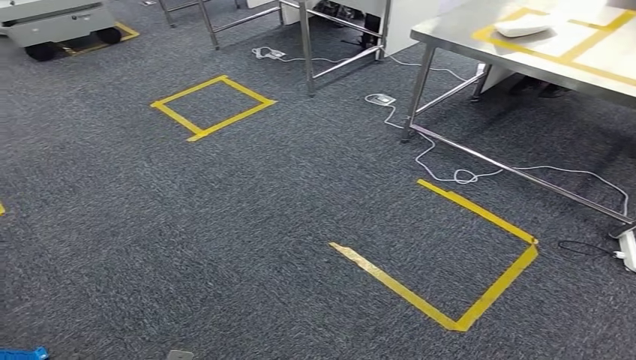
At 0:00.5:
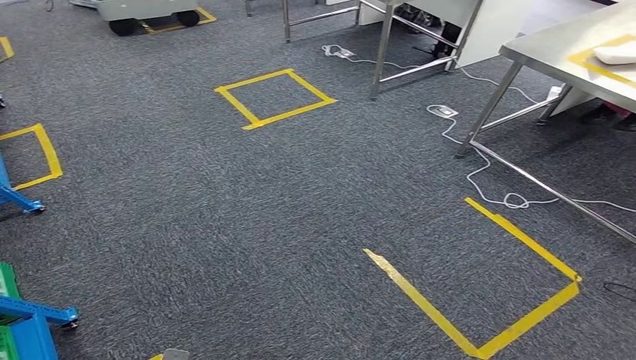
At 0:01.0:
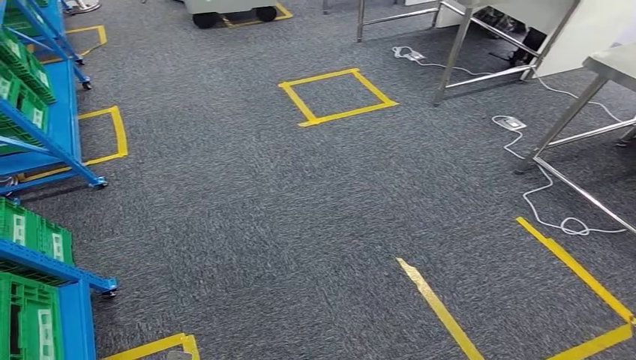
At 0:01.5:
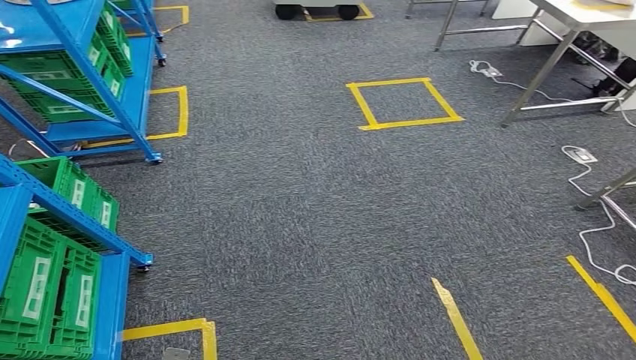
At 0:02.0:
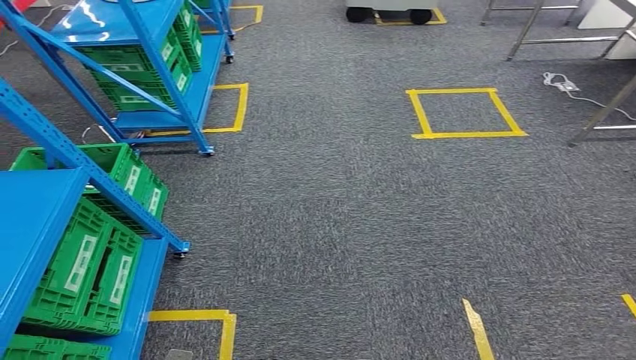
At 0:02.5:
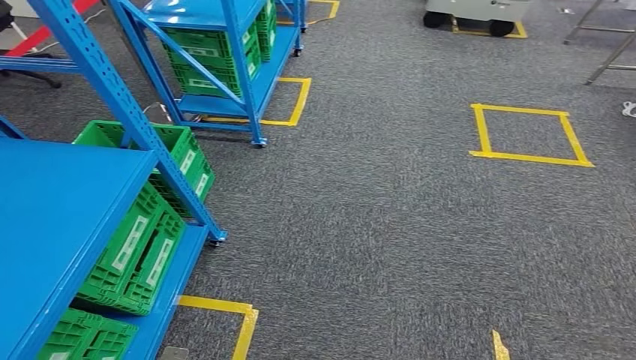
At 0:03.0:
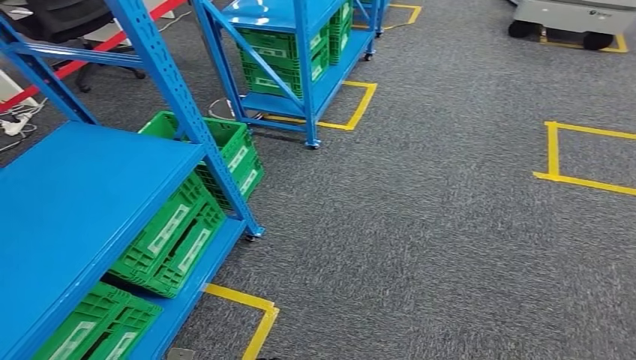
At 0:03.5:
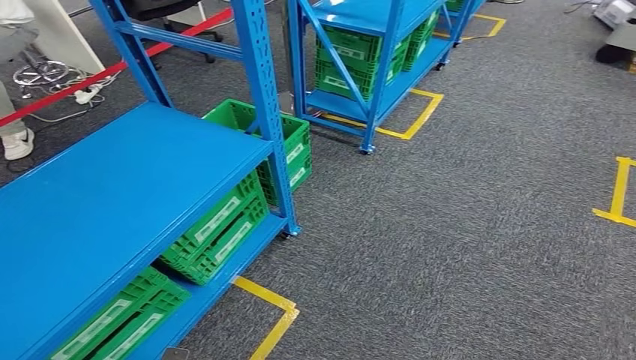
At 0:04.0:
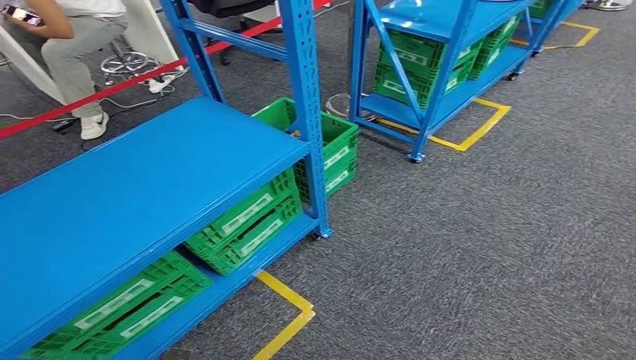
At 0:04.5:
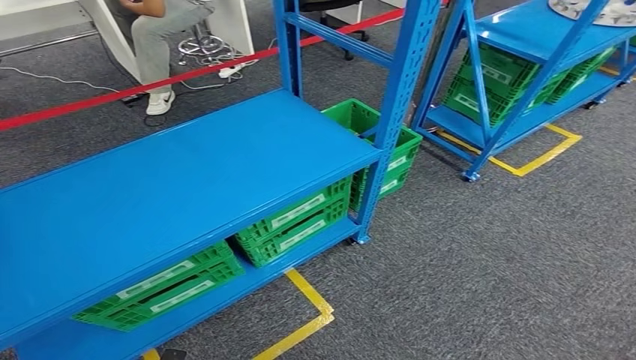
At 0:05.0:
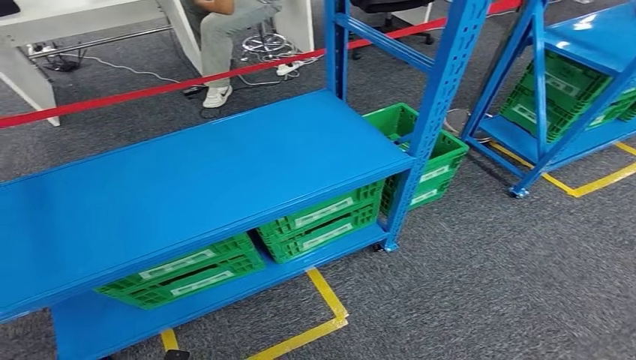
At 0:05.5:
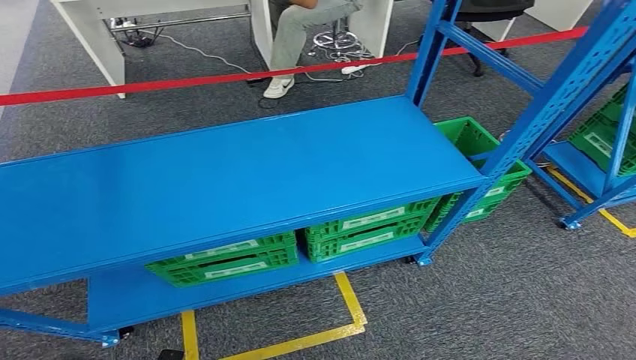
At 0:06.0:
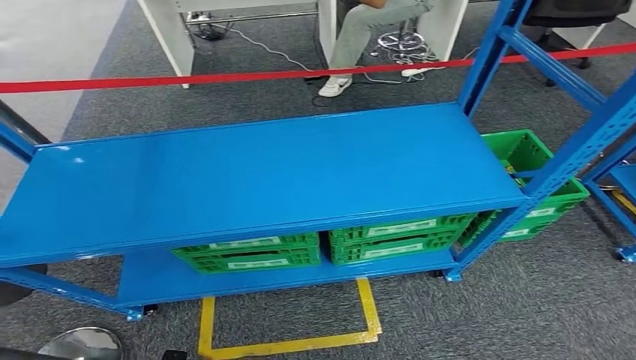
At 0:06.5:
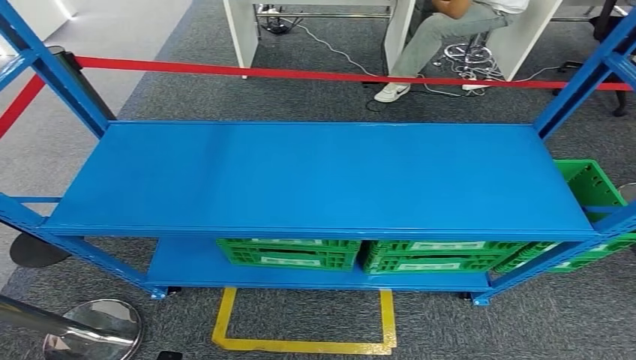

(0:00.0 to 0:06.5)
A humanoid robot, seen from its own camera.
Step, 0:00.0 - 0:06.5: Move to the initial position at the workbench.
